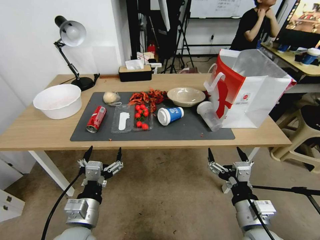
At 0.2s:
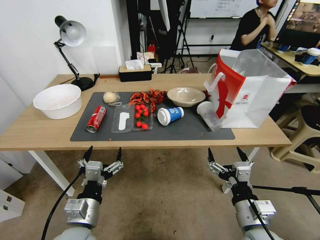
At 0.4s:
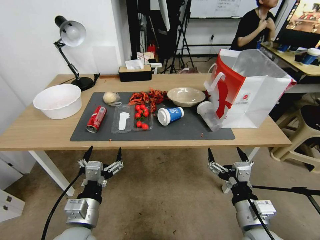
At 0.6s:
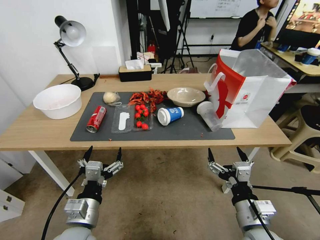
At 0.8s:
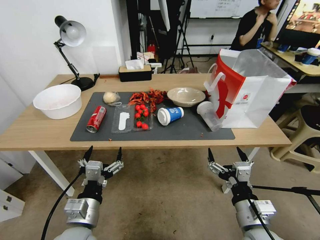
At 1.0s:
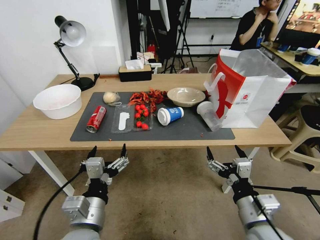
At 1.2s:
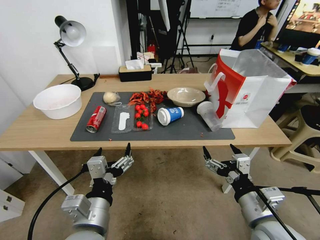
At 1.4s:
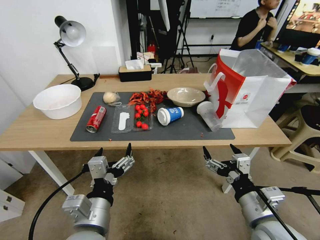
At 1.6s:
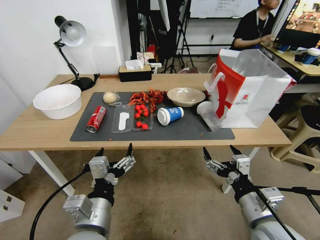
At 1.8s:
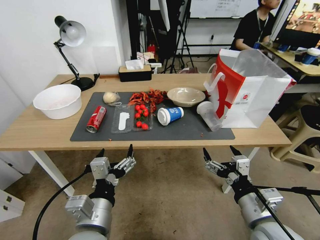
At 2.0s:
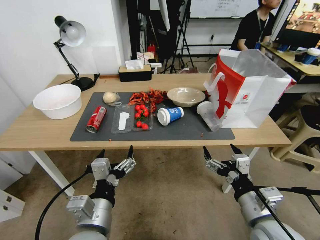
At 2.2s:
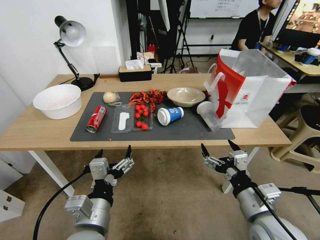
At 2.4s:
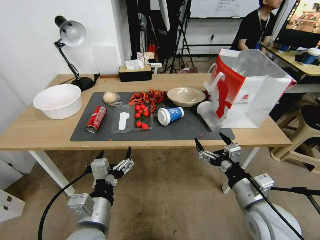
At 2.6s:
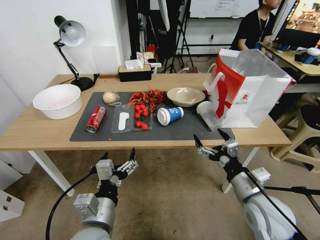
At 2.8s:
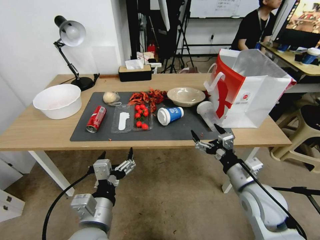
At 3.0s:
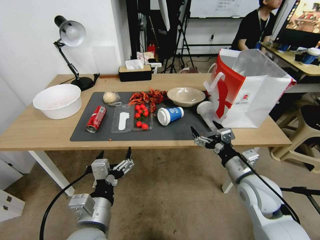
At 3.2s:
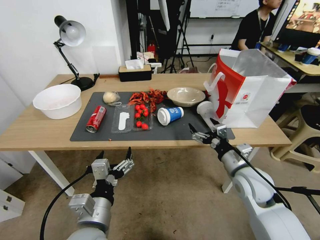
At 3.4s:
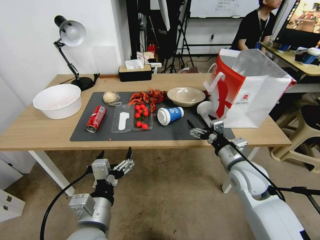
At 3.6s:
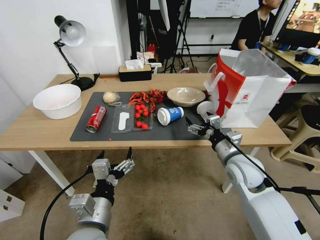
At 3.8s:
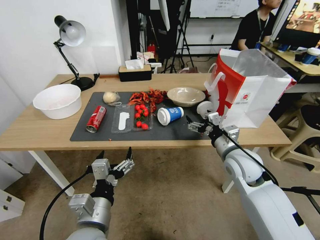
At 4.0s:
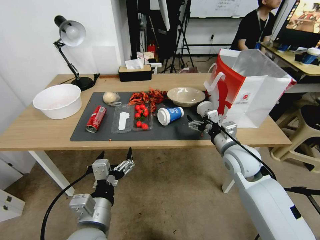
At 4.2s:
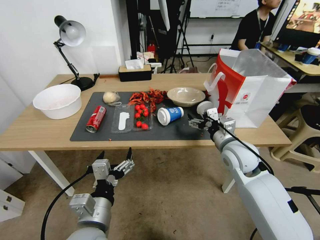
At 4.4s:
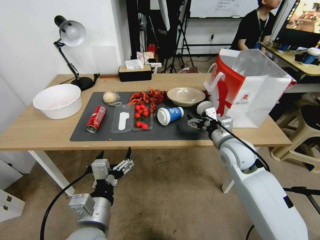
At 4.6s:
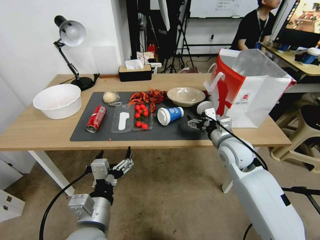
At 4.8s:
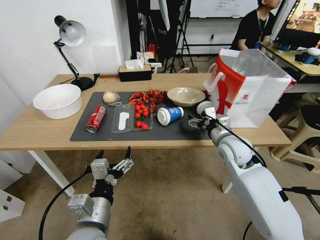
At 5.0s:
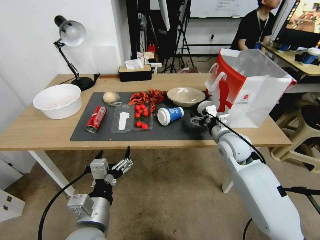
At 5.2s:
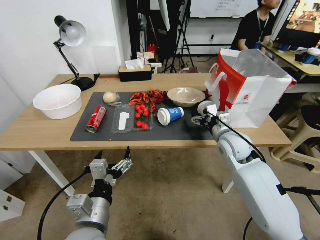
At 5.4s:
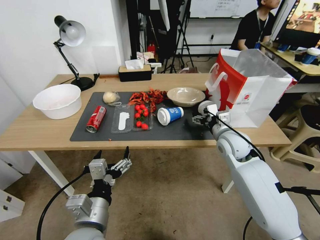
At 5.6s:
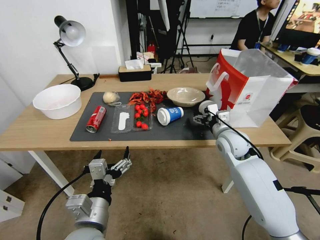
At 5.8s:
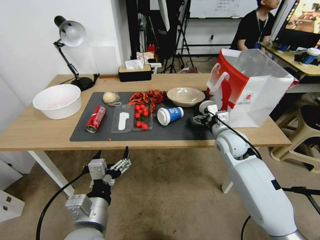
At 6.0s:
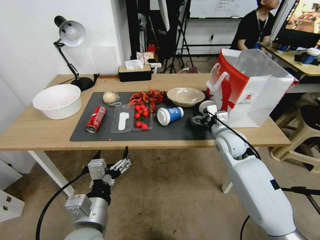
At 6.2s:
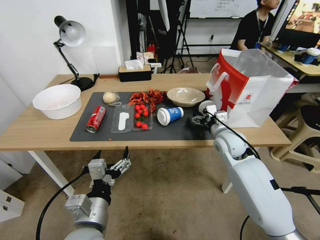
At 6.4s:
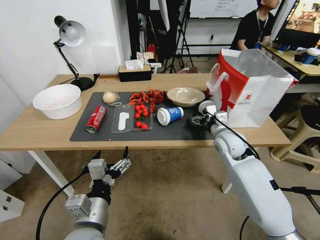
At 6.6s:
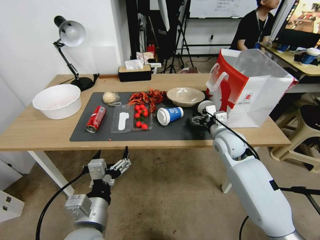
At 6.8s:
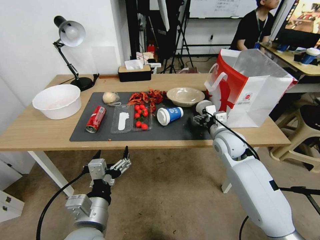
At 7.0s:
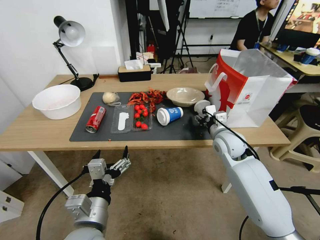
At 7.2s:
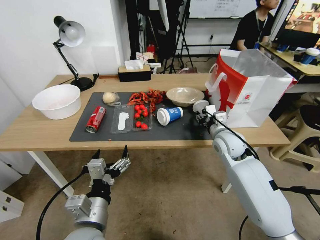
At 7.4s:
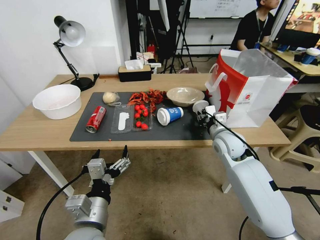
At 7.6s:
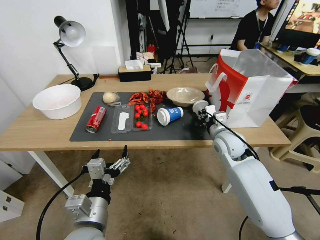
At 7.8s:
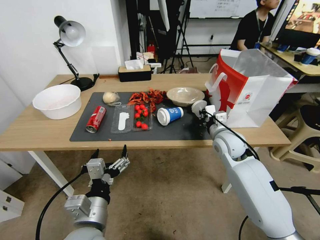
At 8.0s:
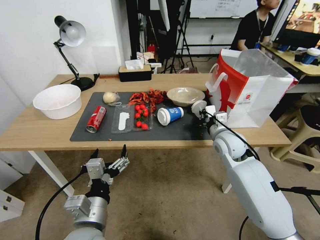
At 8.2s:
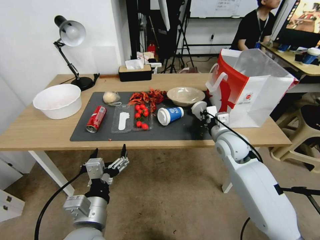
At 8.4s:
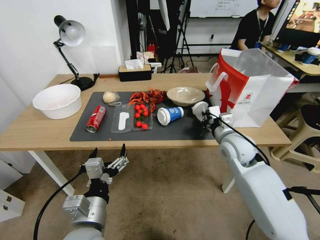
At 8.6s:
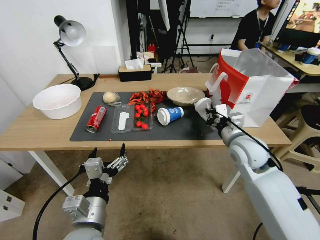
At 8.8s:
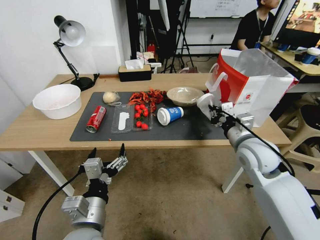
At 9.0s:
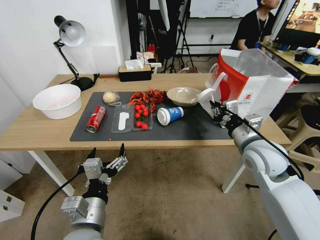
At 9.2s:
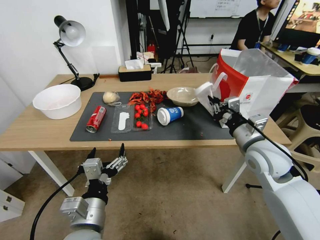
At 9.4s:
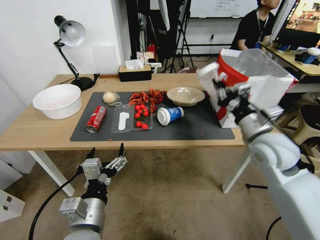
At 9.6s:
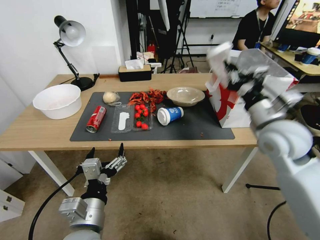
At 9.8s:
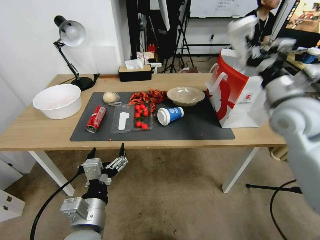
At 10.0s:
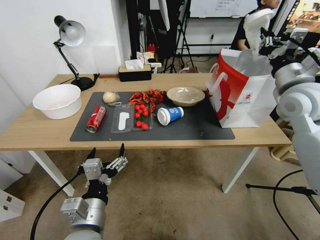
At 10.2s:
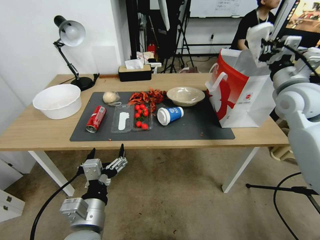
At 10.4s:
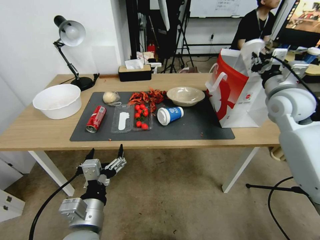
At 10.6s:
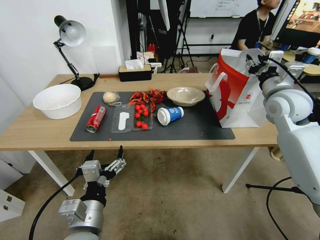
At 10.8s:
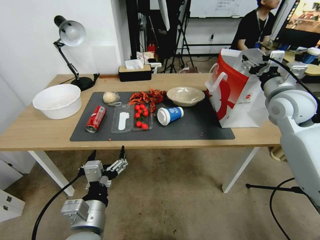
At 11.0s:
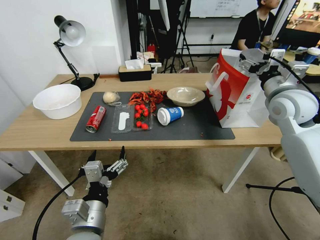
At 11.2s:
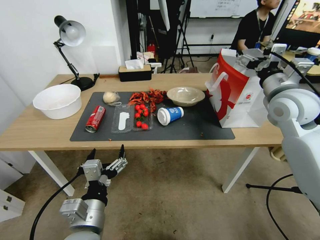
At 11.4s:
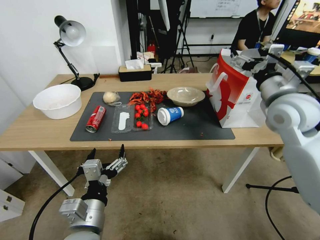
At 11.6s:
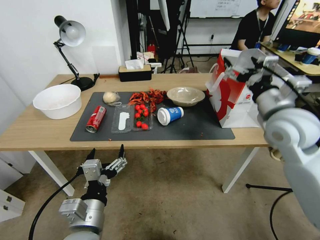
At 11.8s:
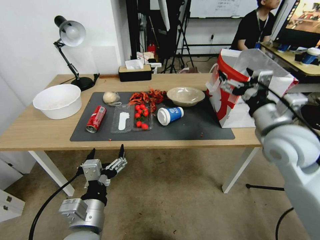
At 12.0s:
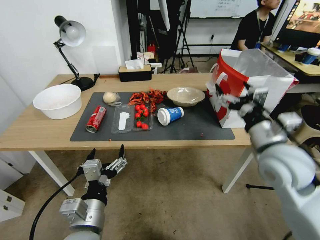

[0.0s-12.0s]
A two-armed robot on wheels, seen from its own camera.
1.6s to 3.0s: The right gripper is displaced forward by about 10 cm.
3.0s to 4.4s: The right gripper is displaced forward by approximately 10 cm.
4.4s to 6.0s: The right gripper travels forward by roughly 5 cm.
6.0s to 7.6s: The right gripper closes up.
7.6s to 9.0s: The right gripper shifts roughly 10 cm backward and upward.
9.0s to 10.4s: The right gripper is displaced upward, to the right and forward by roughly 15 cm.
10.4s to 12.0s: The right gripper goes some 15 cm backward and to the left, and opens up.

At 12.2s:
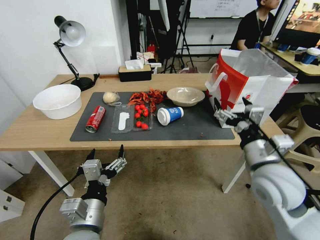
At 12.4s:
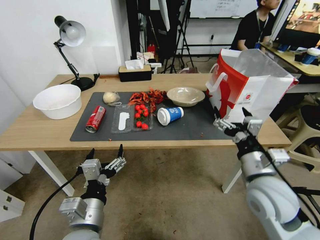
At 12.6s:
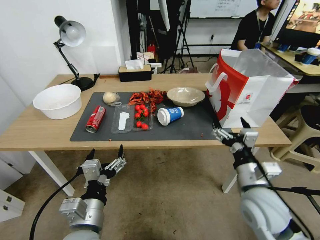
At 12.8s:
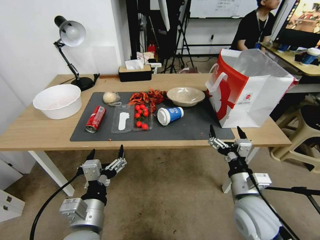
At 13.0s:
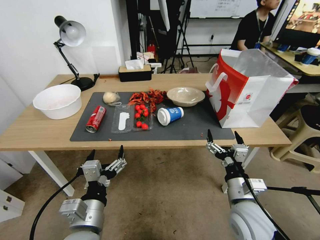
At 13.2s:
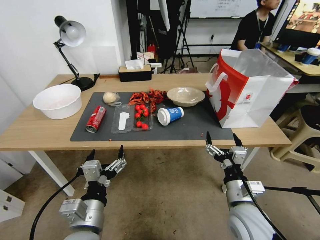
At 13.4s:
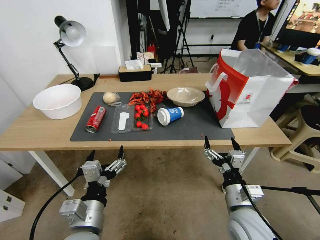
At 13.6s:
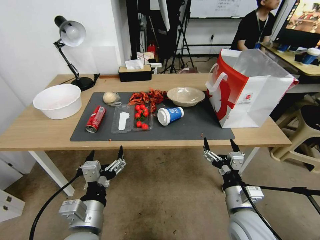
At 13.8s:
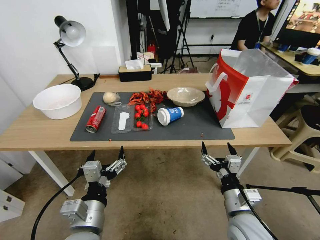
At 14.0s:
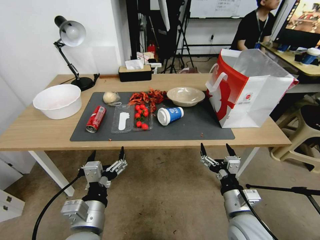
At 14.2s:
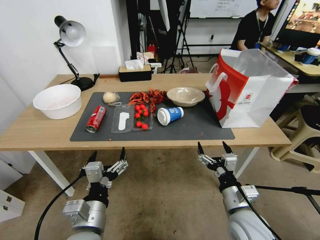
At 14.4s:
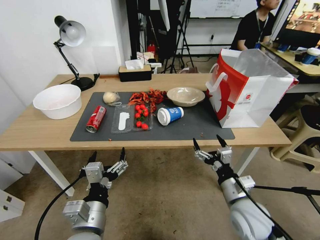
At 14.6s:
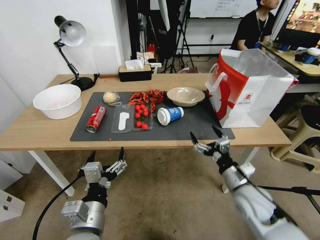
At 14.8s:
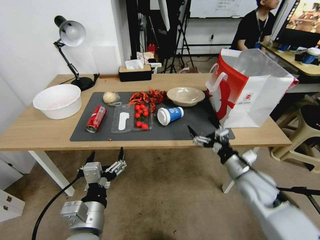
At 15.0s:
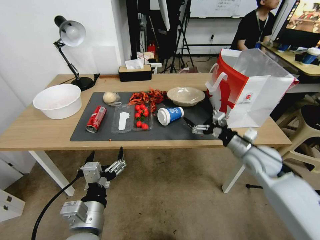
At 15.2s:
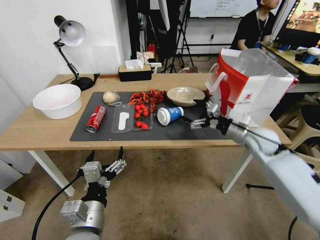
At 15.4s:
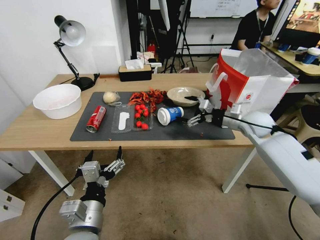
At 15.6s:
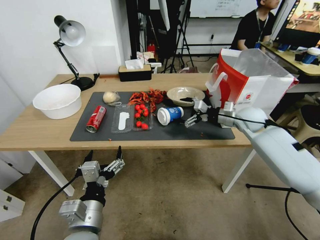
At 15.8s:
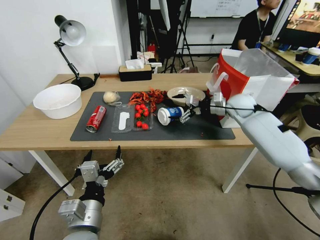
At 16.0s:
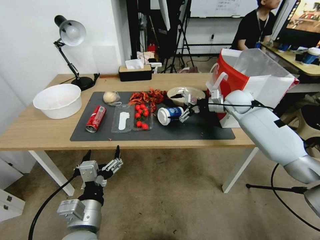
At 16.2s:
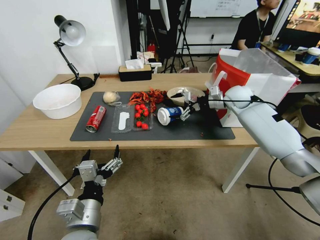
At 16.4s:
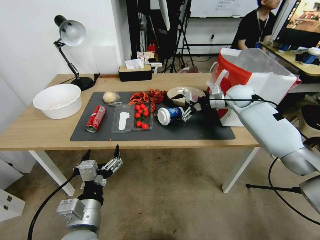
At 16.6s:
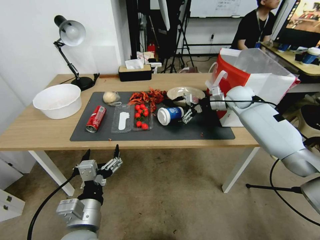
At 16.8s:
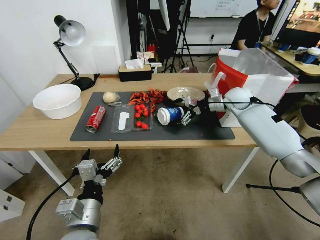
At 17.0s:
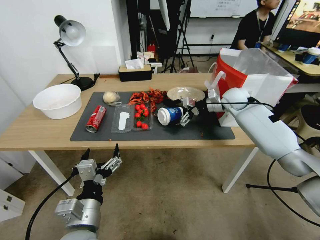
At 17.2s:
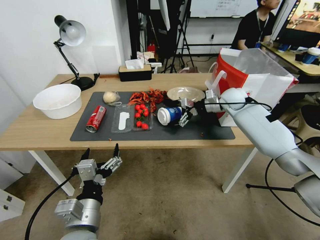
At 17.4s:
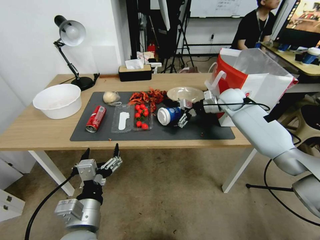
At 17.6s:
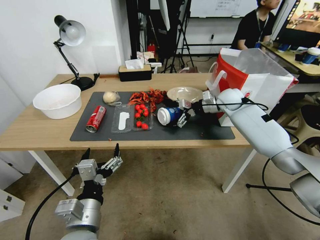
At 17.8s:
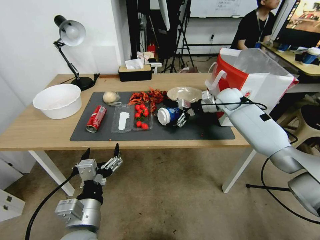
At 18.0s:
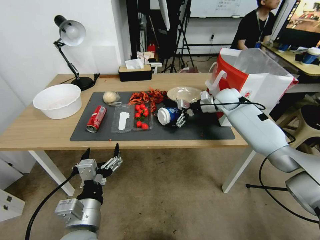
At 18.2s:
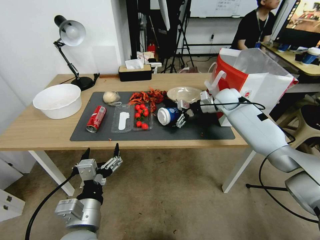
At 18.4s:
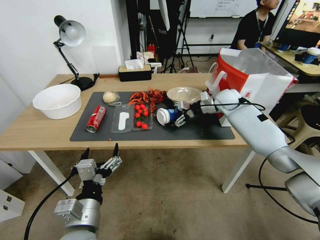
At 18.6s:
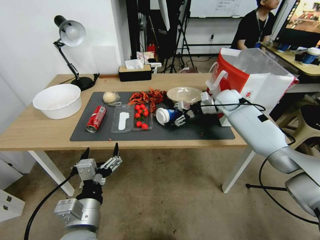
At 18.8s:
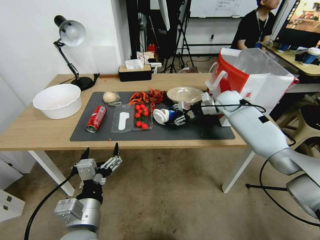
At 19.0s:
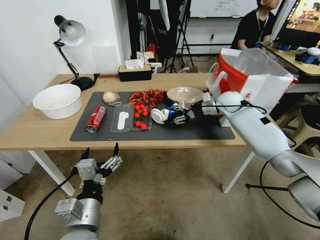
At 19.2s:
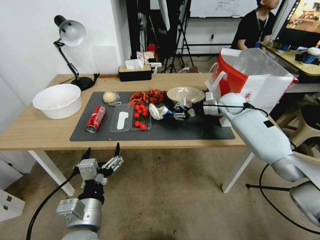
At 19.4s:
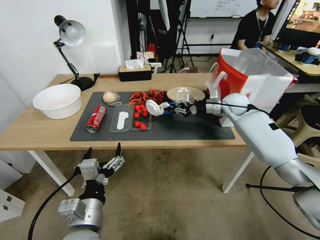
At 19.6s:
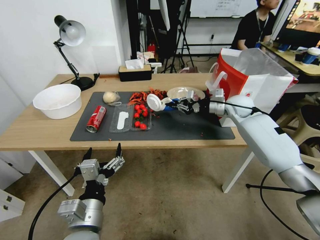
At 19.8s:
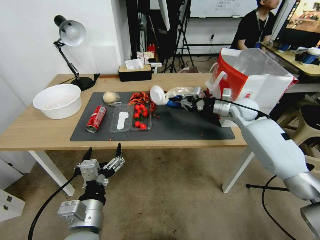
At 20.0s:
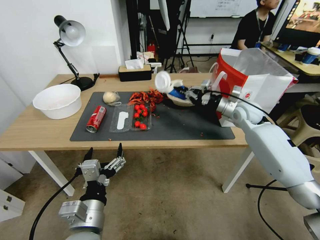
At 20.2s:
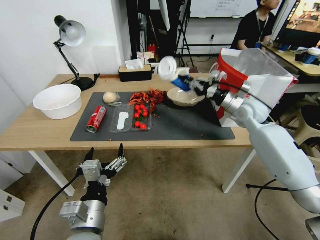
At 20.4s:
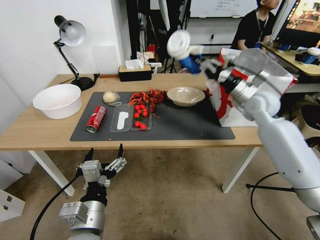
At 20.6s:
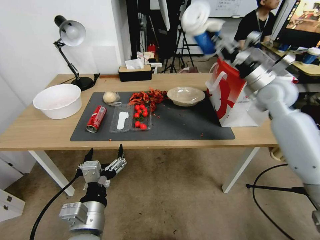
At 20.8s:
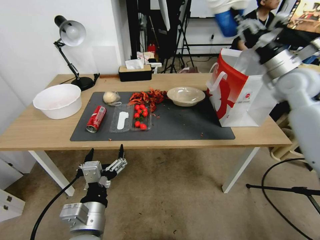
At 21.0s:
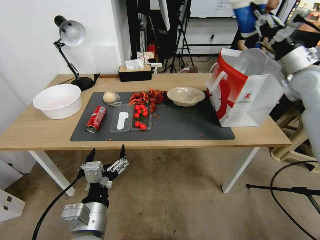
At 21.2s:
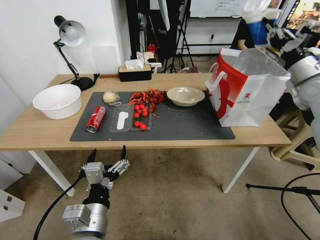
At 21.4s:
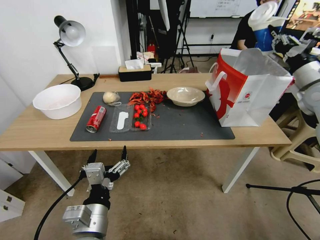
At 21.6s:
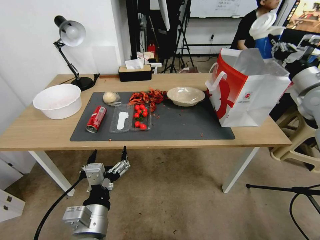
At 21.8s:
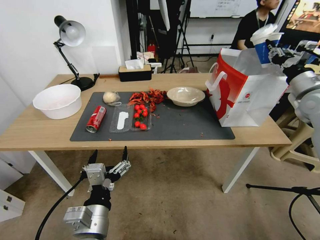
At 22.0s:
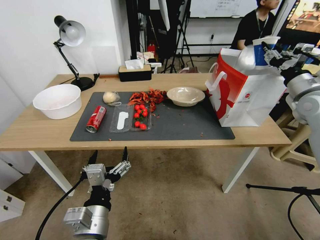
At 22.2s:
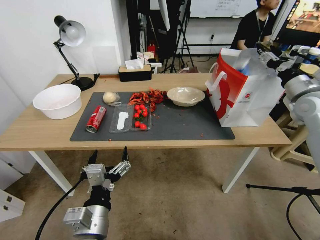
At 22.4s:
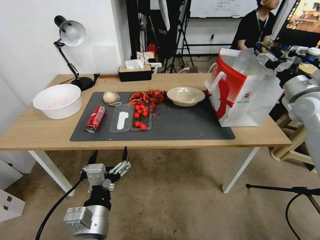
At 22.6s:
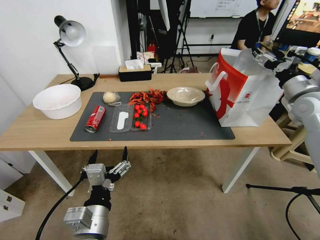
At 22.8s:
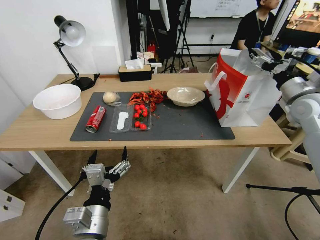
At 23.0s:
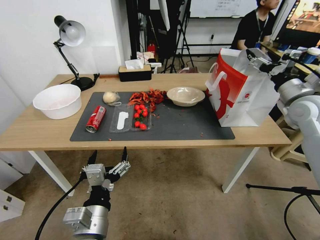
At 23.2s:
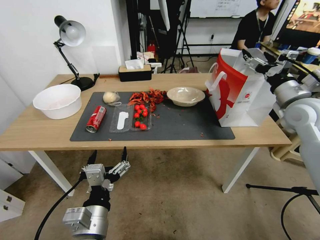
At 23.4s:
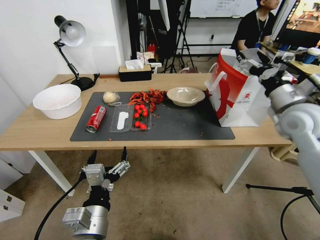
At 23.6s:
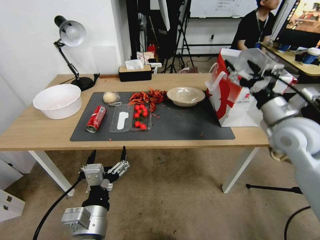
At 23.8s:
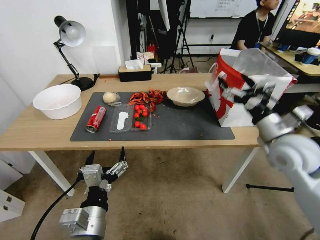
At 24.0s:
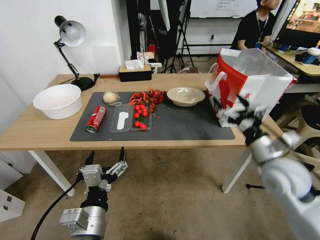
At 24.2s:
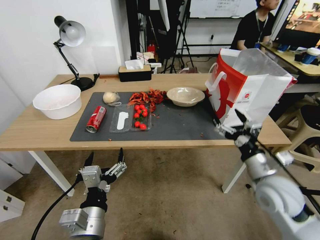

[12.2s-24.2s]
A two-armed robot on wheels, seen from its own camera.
12.2s to 13.8s: The right gripper goes roughly 15 cm downward and backward.
13.8s to 15.2s: The right gripper goes roughly 25 cm forward and to the right.
15.2s to 16.6s: The right gripper goes some 15 cm forward.
16.6s to 18.2s: The grippers stay close to where they were, moving slightly.
18.2s to 19.8s: The right gripper moves backward, roughly 5 cm, and closes.
19.8s to 21.2s: The right gripper shifts approximately 20 cm upward, to the right and backward.
21.2s to 22.6s: The right gripper opens.
22.6s to 24.2s: The right gripper moves backward, downward and to the left, roughly 30 cm.
